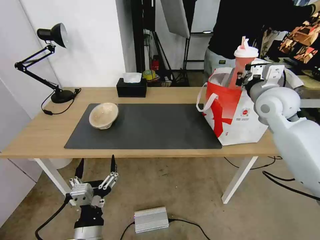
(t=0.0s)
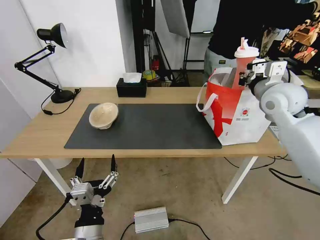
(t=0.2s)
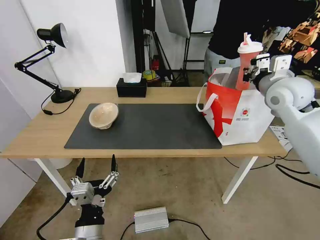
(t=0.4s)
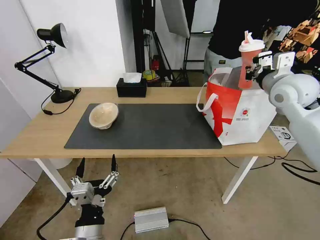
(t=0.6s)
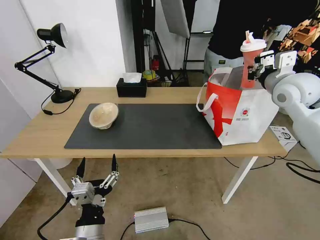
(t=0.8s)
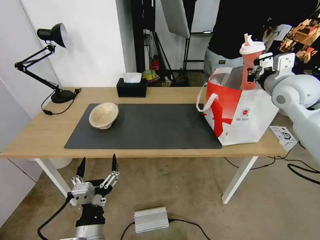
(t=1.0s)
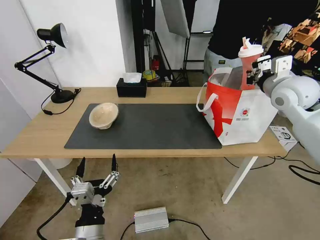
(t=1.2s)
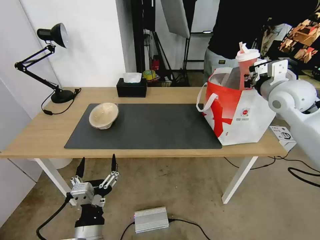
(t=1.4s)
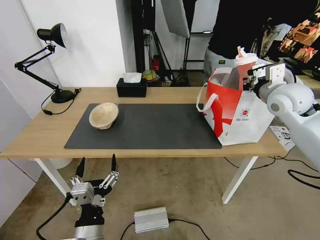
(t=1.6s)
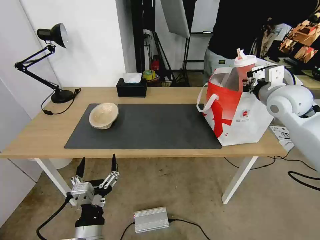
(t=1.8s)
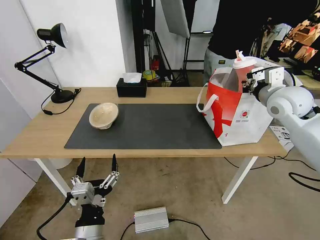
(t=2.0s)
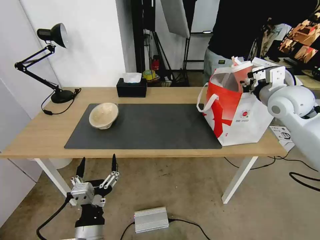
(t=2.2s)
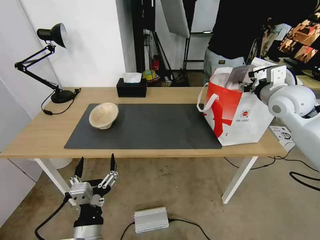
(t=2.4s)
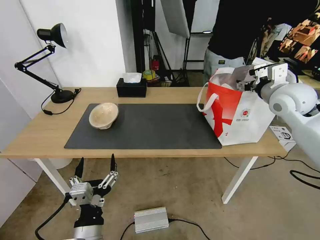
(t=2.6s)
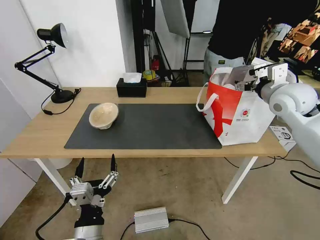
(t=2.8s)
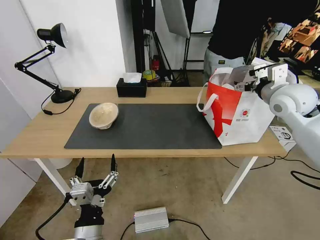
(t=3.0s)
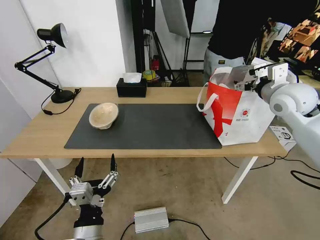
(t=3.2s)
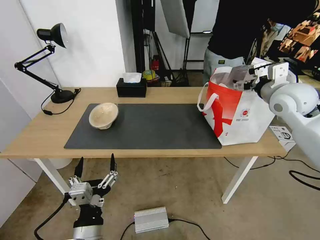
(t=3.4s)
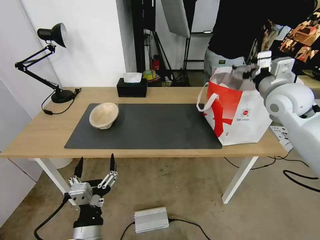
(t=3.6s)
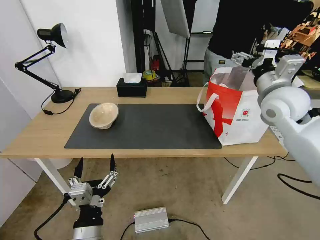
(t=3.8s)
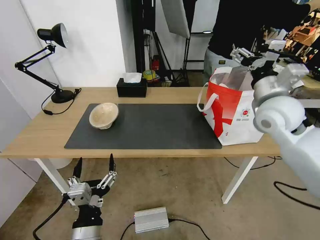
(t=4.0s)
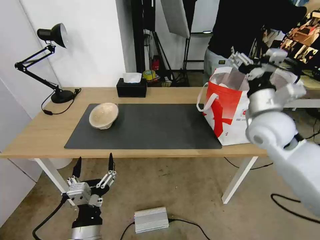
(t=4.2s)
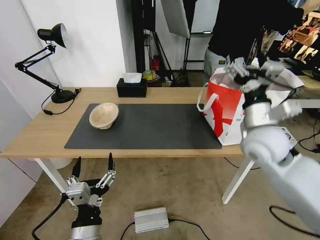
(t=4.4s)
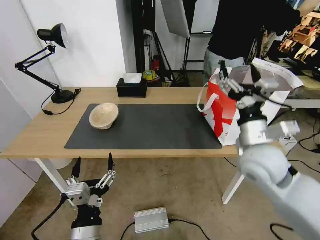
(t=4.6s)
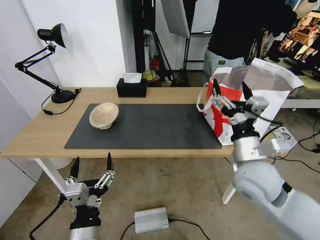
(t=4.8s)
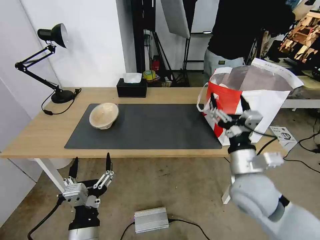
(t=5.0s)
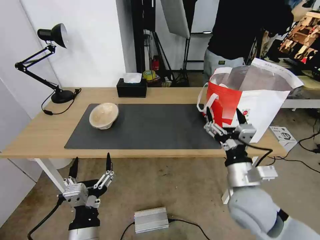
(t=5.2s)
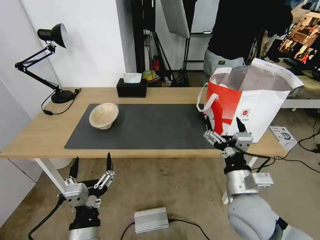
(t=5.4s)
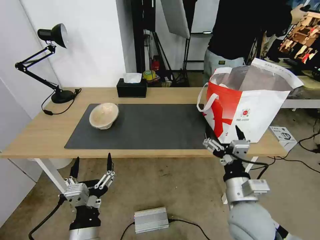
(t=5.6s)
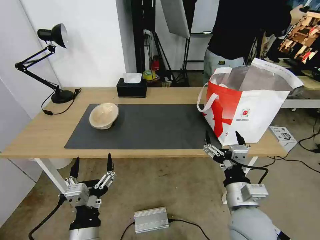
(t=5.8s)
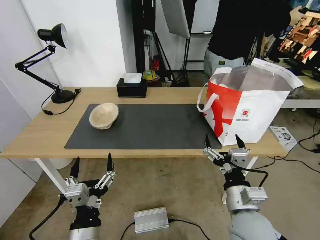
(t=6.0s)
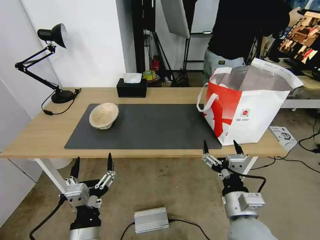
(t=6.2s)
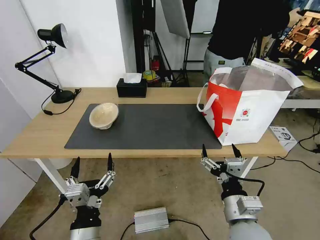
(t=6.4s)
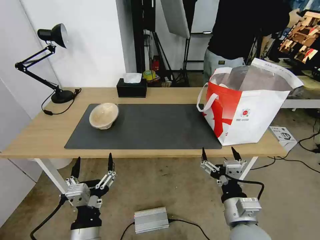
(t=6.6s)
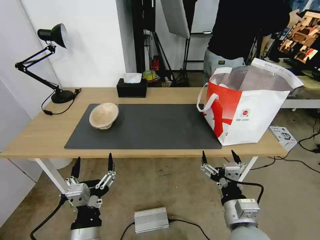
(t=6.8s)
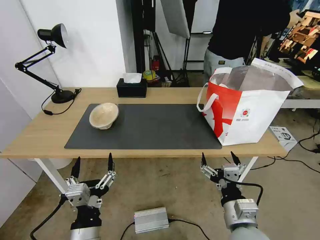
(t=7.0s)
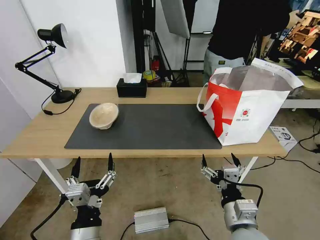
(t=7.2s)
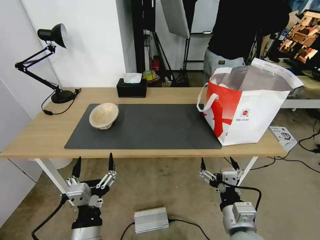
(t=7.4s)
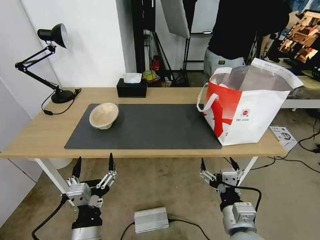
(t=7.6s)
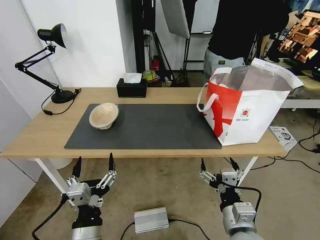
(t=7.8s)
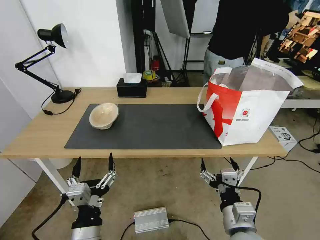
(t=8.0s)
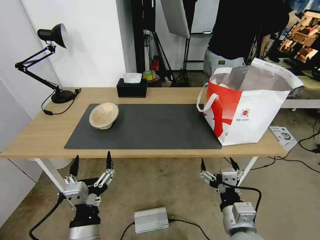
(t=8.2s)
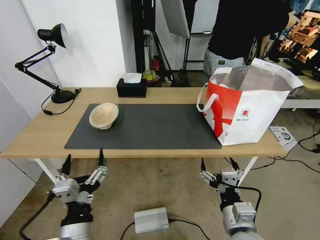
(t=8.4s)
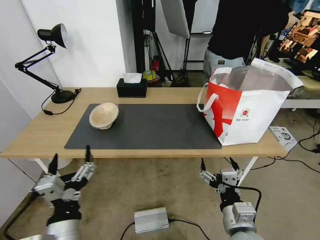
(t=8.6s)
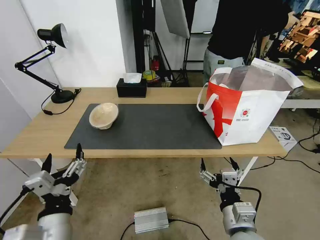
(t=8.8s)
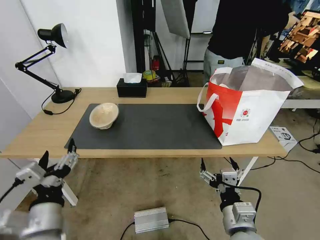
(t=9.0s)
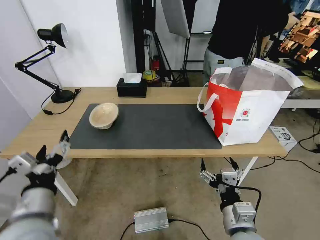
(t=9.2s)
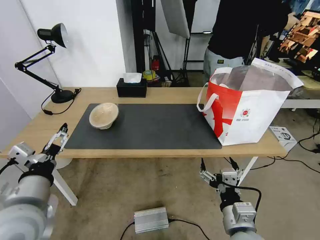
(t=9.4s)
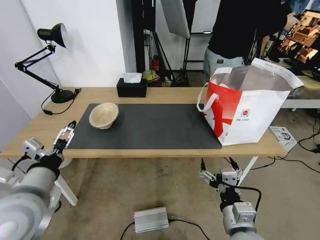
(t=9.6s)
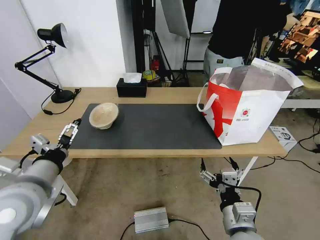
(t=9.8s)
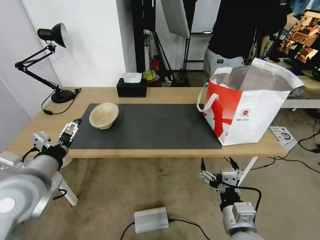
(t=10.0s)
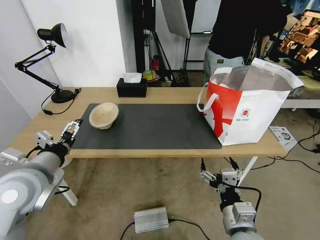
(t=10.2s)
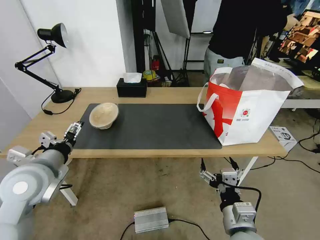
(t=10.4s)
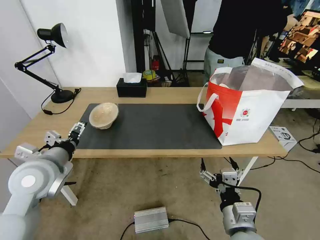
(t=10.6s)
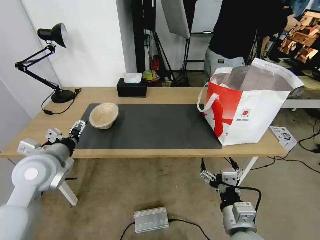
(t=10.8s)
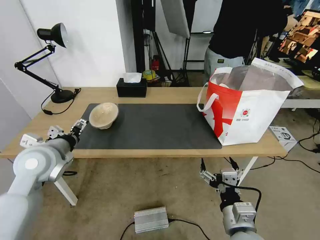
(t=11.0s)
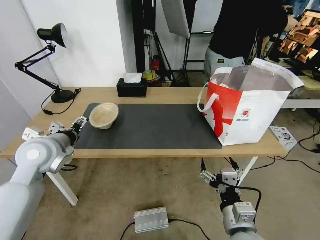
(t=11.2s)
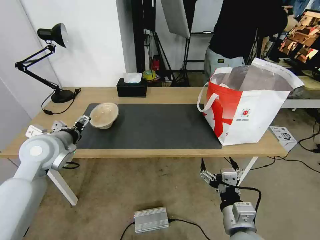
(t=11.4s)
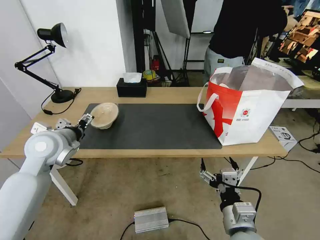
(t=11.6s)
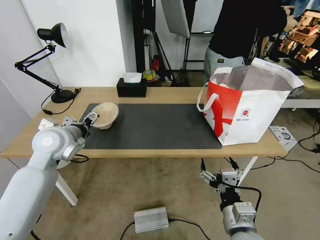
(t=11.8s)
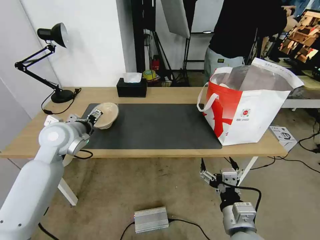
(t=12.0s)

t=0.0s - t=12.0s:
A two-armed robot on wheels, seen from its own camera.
Task of the whole recording: Pick up the trash from the table and place it into the takeout bag.
t=0.0s - t=1.6s: The grippers move only a little.
t=1.6s - t=3.0s: The right gripper opens up.
t=3.0s - t=4.4s: The right gripper moves backward, to the left and downward, some 15 cm.
t=4.4s - t=6.0s: The right gripper heads backward and downward, covering approximately 20 cm.
t=6.0s - t=7.6s: The grippers make only small movements.
t=7.6s - t=9.0s: The left gripper shifts some 10 cm to the left and upward.
t=9.0s - t=10.4s: The left gripper shifts roughly 15 cm forward, to the left and upward.
t=10.4s - t=12.0s: The left gripper goes some 15 cm forward.

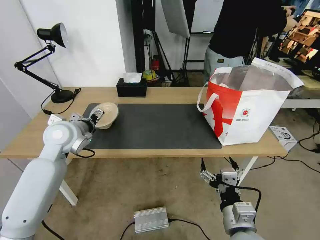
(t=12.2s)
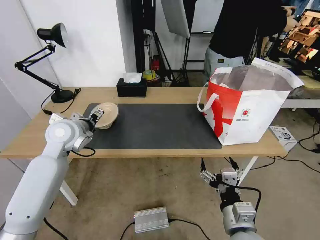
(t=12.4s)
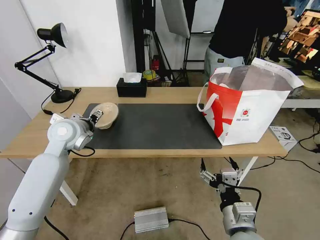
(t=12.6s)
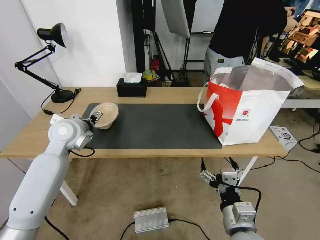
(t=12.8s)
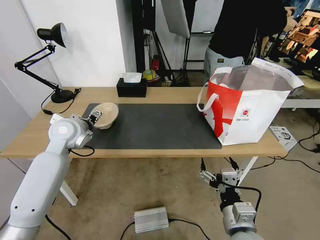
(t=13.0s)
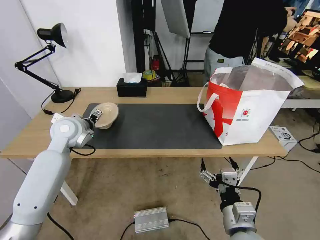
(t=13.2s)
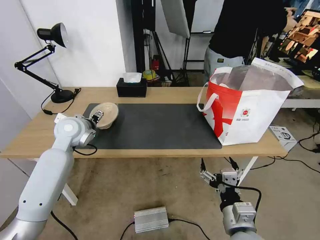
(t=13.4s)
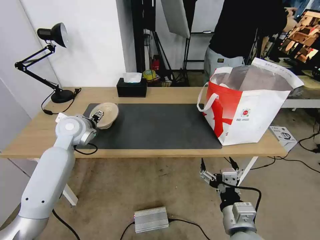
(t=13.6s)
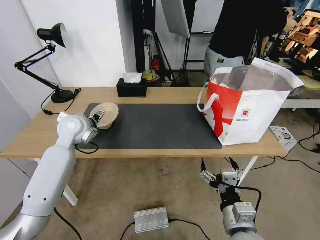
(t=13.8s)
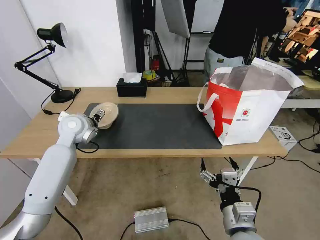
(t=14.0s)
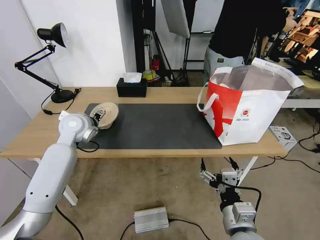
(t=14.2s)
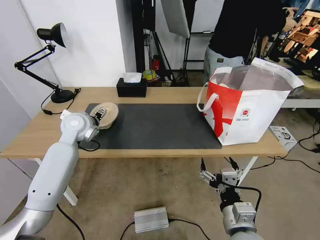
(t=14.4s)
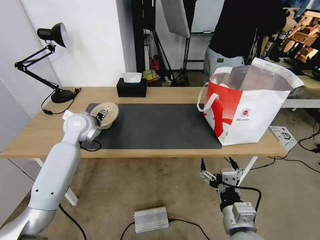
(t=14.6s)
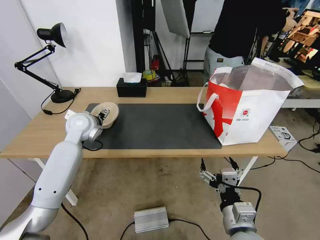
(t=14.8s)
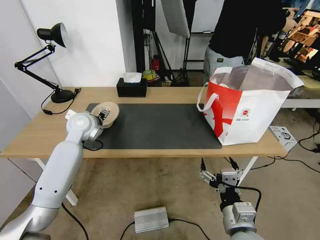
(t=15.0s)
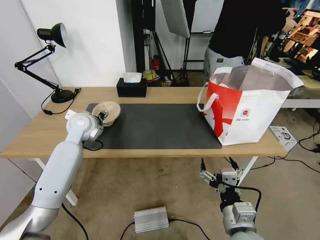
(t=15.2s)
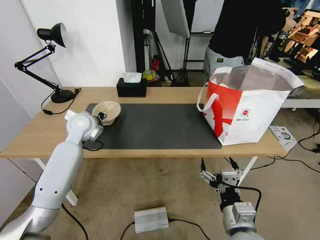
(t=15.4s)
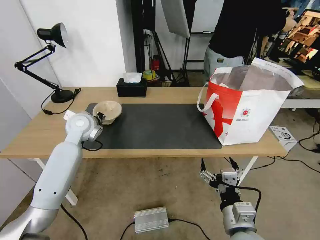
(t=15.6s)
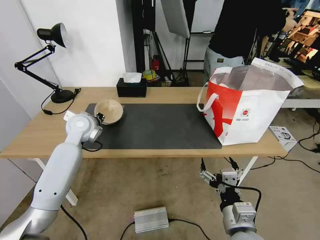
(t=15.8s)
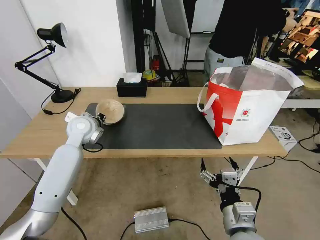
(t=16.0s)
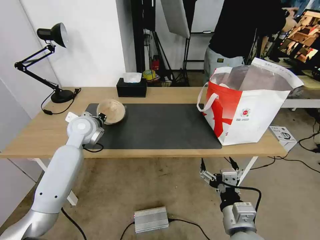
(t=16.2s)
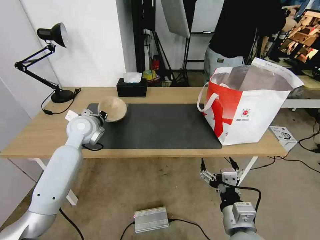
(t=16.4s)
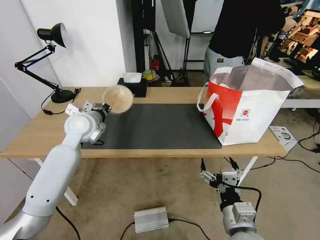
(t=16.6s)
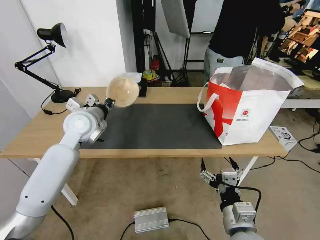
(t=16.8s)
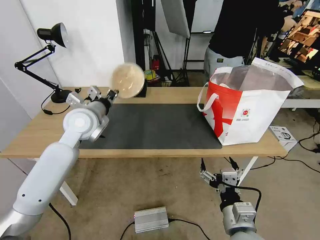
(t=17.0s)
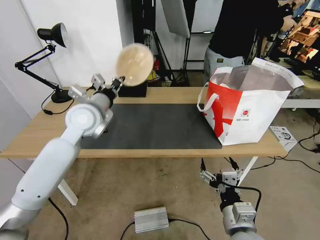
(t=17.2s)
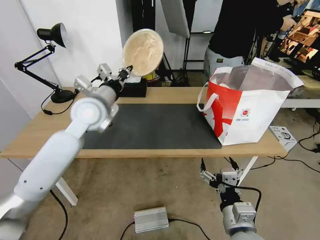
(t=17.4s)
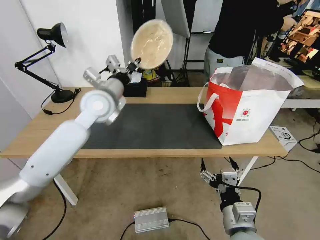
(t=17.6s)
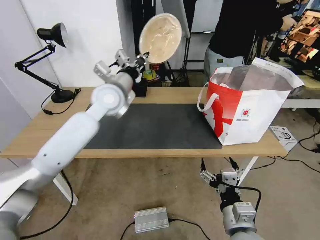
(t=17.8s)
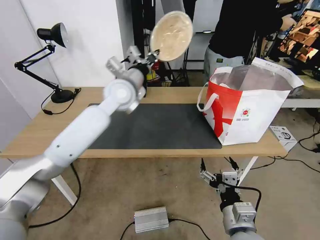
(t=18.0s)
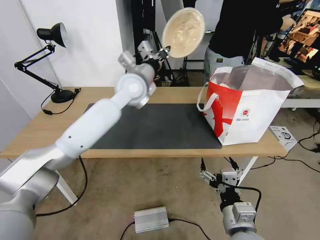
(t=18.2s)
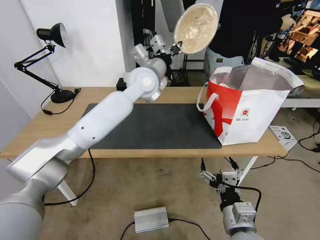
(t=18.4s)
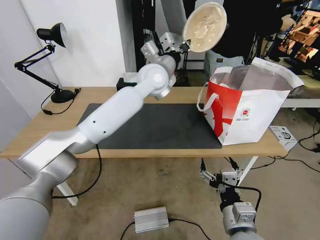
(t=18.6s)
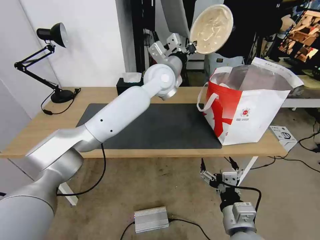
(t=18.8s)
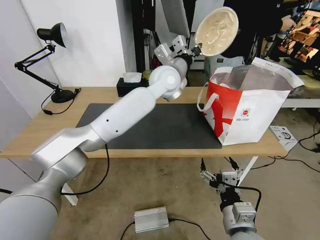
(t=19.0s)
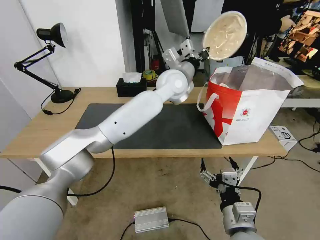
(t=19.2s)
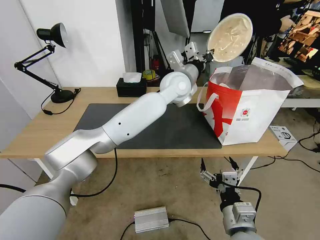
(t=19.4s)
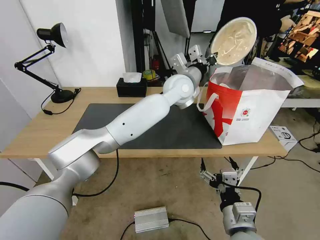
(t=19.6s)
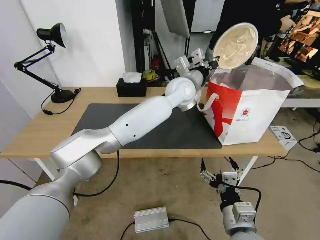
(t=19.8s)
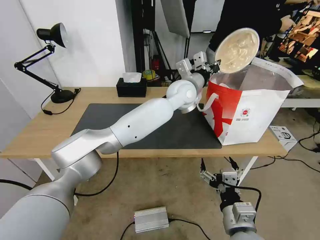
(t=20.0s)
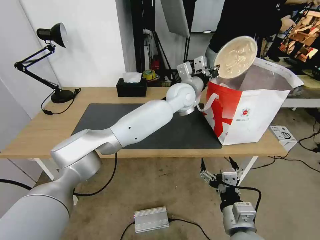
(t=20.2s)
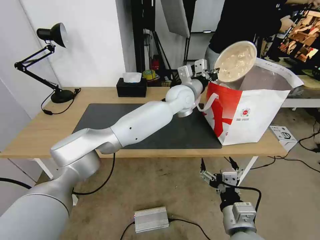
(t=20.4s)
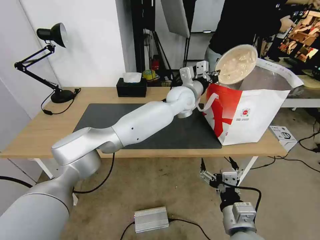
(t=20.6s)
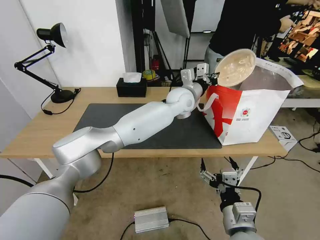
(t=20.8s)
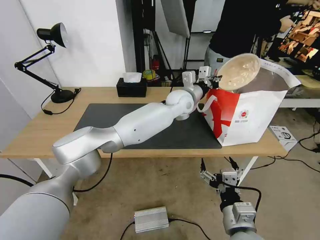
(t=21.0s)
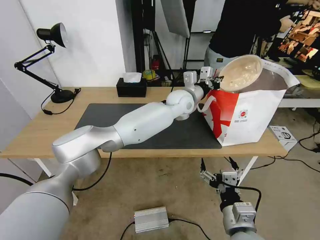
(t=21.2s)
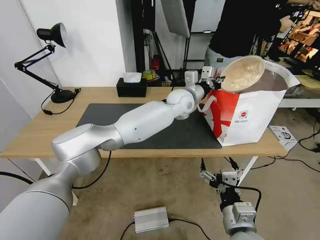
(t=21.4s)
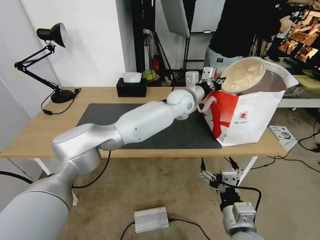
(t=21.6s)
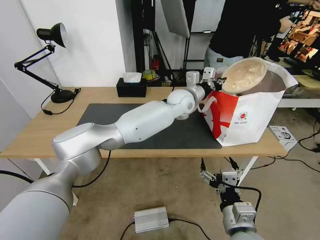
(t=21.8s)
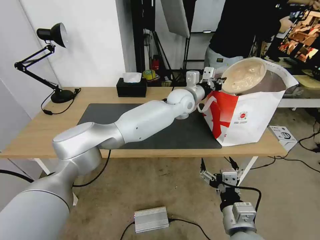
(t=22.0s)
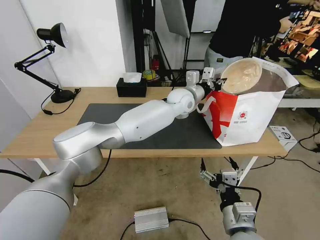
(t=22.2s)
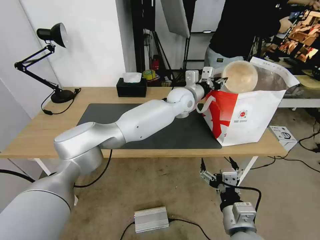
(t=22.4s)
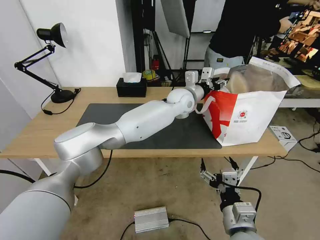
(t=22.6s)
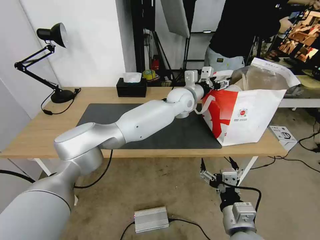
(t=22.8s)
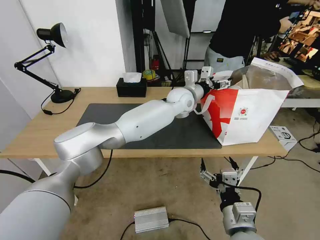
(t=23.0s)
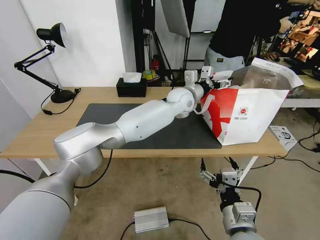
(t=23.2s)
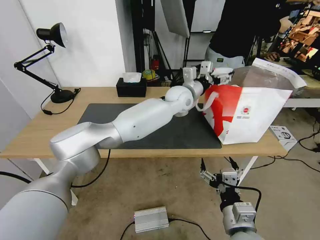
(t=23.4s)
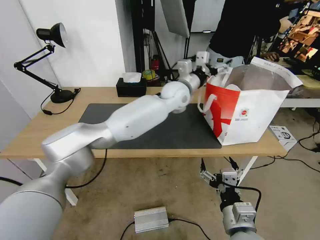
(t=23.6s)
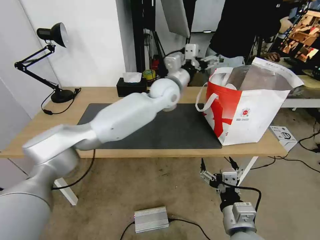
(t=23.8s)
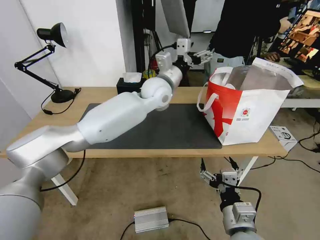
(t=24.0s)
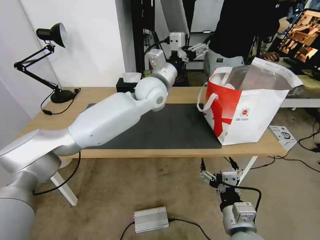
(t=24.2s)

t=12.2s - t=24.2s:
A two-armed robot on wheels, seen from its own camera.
Task of the whole recording: Pick up the trash from the table and place it into the takeout bag.
t=12.2s - t=13.8s: The left gripper moves forward, about 5 cm.
t=13.8s - t=15.2s: The left gripper closes up.
t=15.2s - t=16.6s: The left gripper ends up approximately 5 cm from where it was, and closes.
t=16.6s - t=18.2s: The left gripper goes approximately 20 cm to the right, upward and forward.
t=18.2s - t=19.8s: The left gripper goes roughly 15 cm to the right.
t=19.8s - t=21.2s: The left gripper heads downward, covering some 5 cm.
t=21.2s - t=22.6s: The left gripper opens up.
t=22.6s - t=24.2s: The left gripper shifts roughly 15 cm to the left, upward and backward, and opens its fingers.
